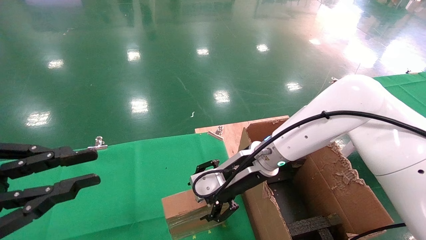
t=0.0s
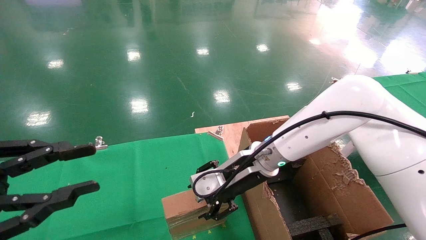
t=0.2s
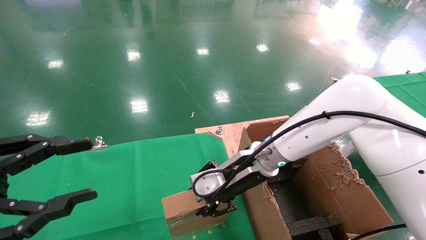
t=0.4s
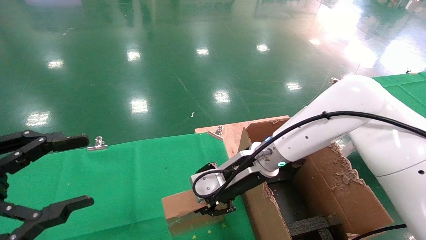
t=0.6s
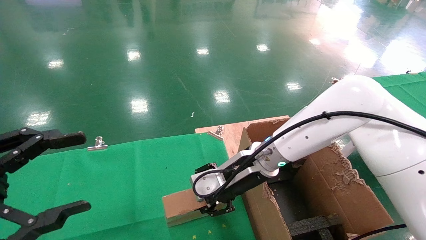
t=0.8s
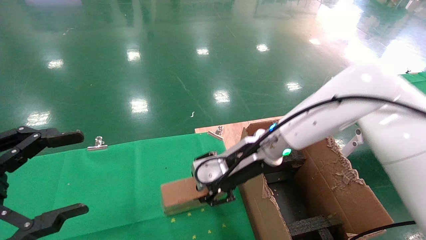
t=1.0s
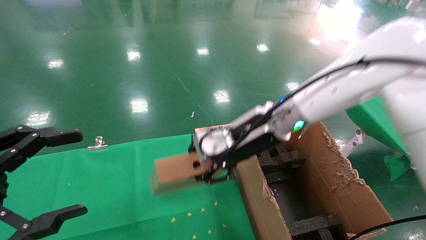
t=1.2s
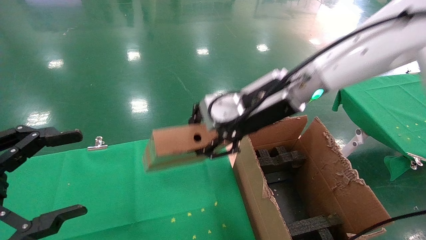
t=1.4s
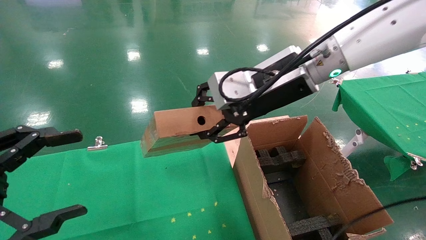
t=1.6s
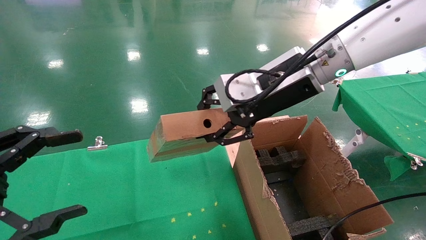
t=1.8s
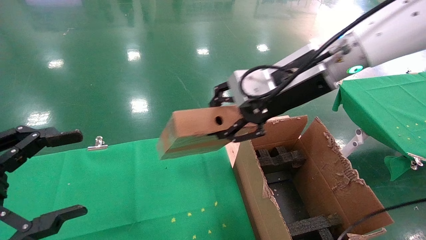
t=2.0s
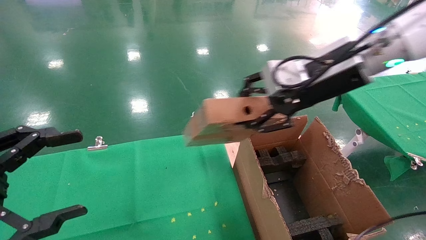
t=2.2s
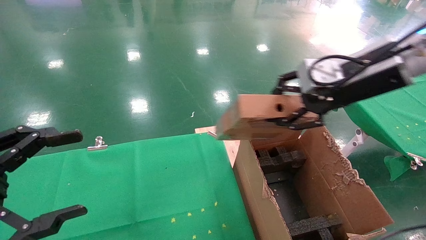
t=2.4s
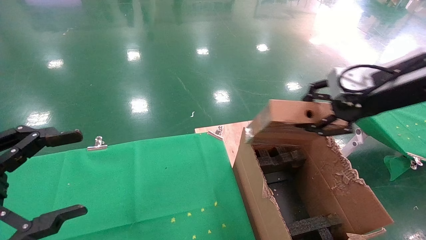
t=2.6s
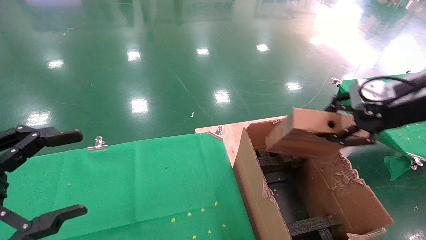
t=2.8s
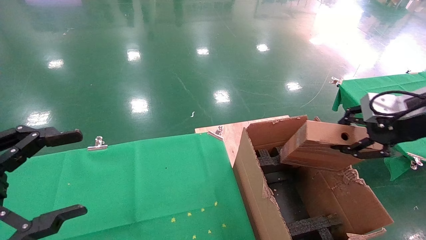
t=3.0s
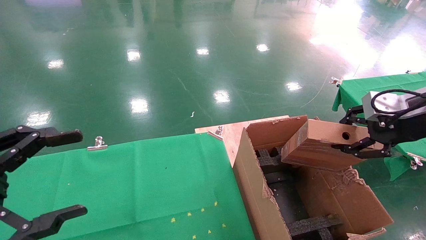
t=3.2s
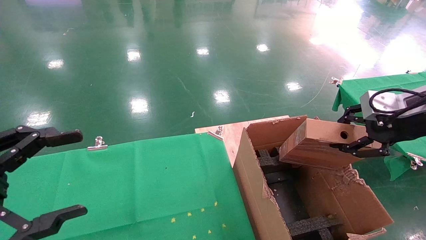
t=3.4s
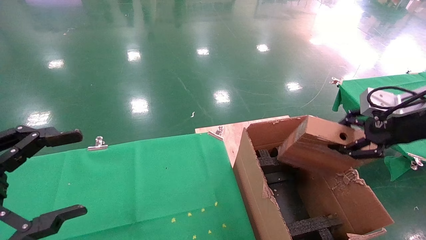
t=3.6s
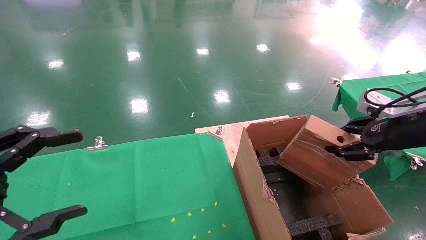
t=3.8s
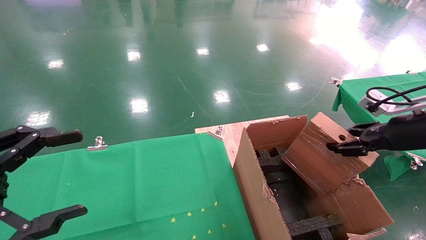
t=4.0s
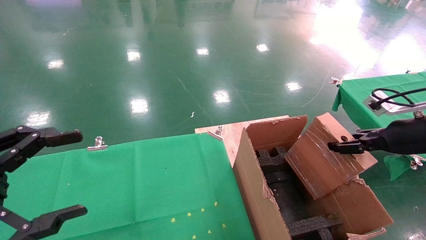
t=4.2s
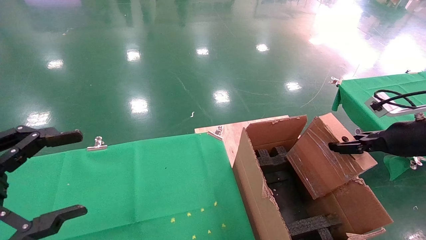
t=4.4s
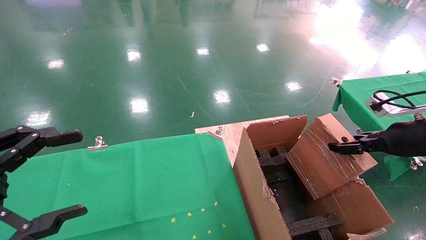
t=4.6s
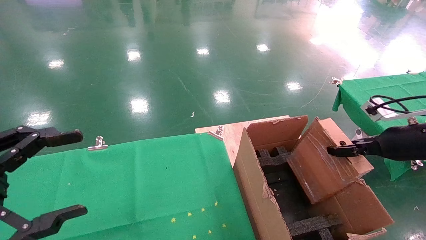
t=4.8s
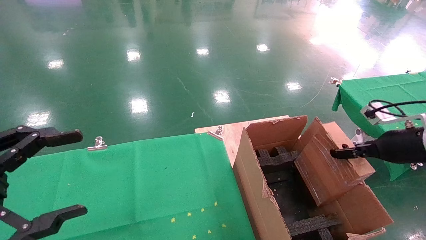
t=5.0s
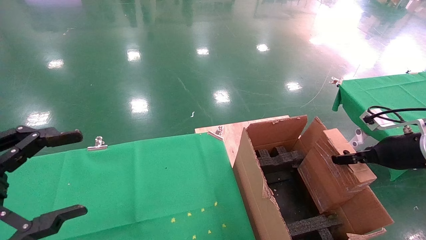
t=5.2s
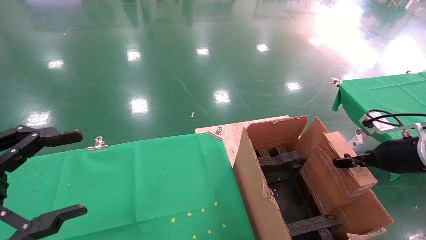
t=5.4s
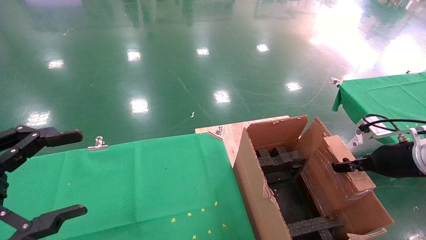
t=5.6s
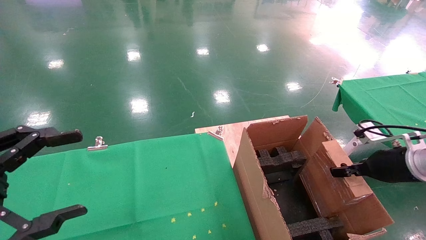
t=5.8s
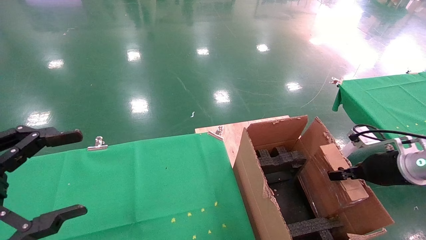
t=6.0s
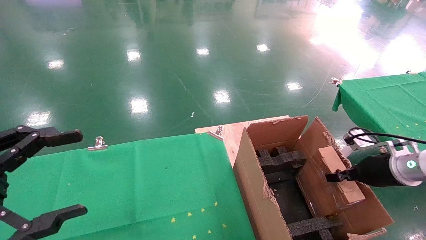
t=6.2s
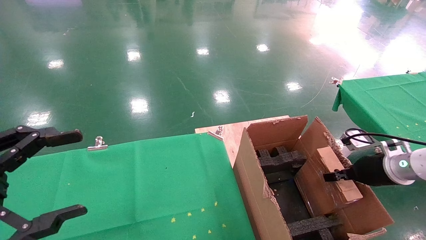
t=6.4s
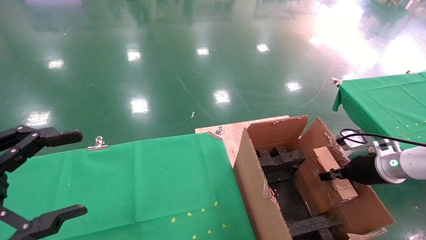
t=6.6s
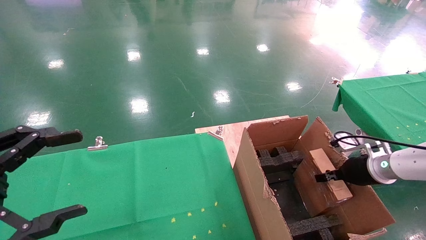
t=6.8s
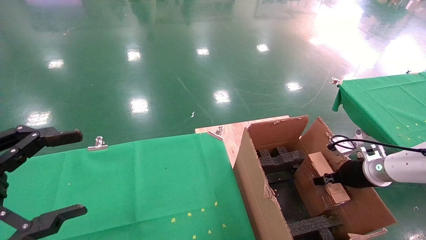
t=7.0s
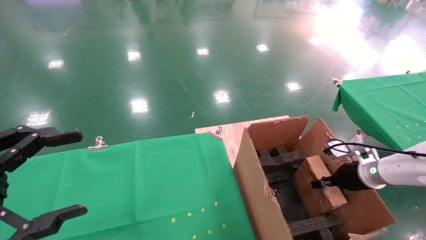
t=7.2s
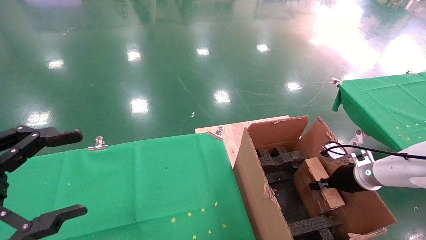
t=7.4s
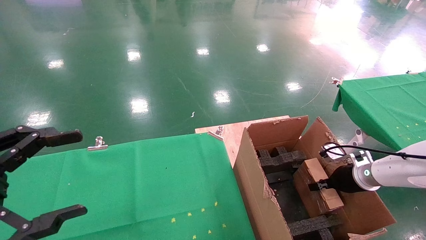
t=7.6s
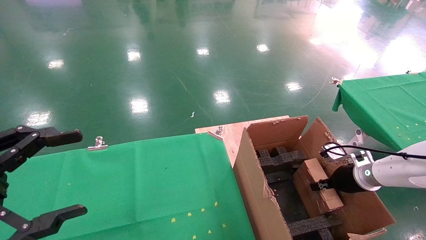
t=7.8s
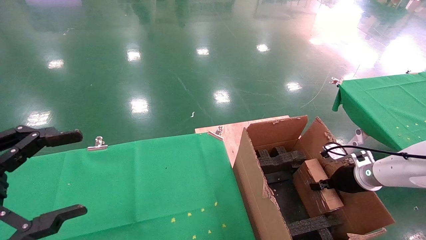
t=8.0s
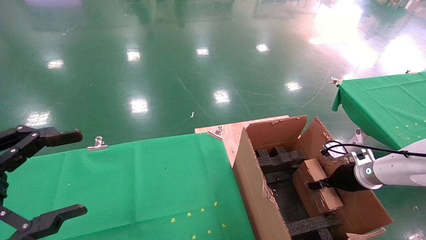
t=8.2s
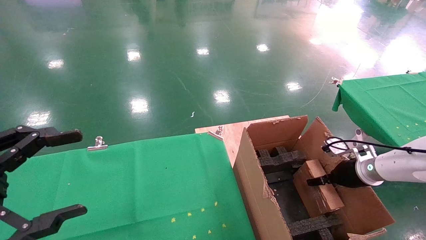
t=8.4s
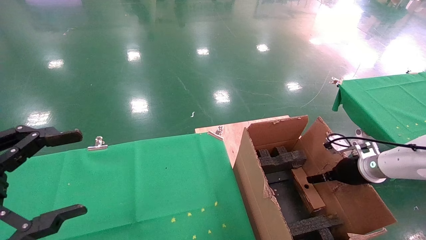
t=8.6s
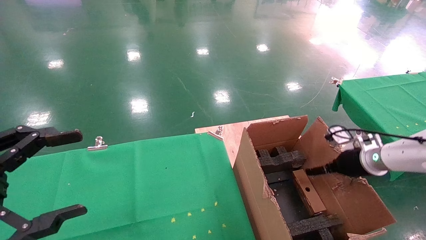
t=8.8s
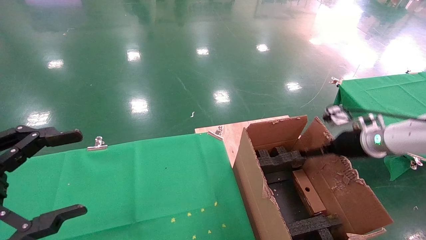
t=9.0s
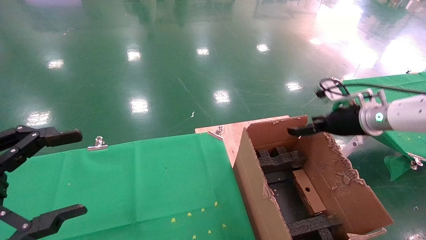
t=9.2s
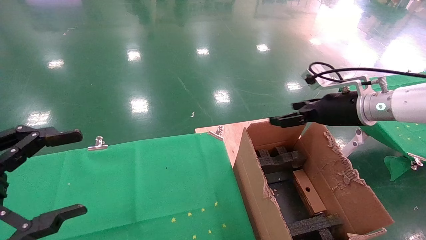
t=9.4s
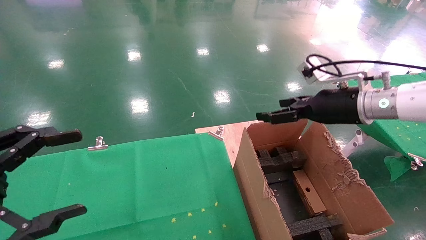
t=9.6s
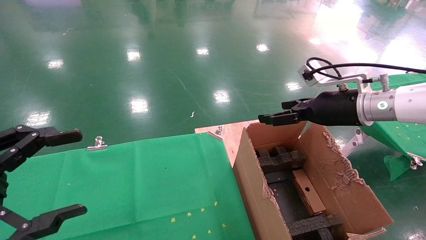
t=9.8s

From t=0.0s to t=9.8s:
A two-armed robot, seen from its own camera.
Task of the whole recording: using a robotic arm to pick up a cardboard box and palace it the carton.
Step, from t=0.6s to t=9.0s: Place the mouse and the power cord paper box into the container.
From t=0.0s to t=1.4s: The left gripper opens its fingers. The right gripper heads upward, covering approximately 15 cm, and closes its fingers.
From t=1.4s to t=2.8s: The right gripper shifts about 25 cm to the right.
From t=2.8s to t=4.2s: The right gripper shifts some 10 cm downward and to the right.
From t=4.2s to t=5.6s: The right gripper heads downward, covering roughly 5 cm.
From t=5.6s to t=7.0s: The right gripper is displaced downward and forward by about 10 cm.
From t=7.0s to t=8.4s: The right gripper opens up.
From t=8.4s to t=9.8s: The right gripper moves upward and to the left, approximately 20 cm, and opens up.

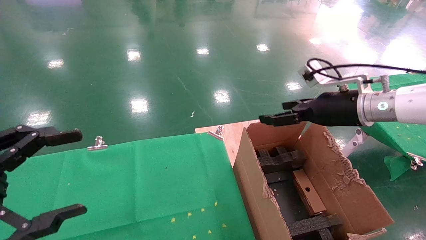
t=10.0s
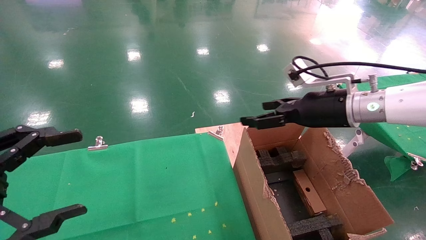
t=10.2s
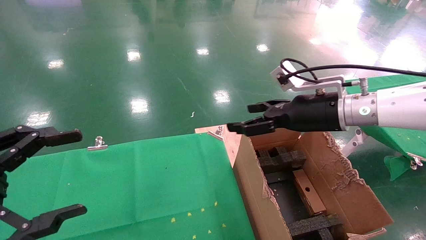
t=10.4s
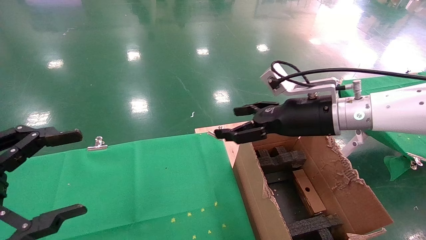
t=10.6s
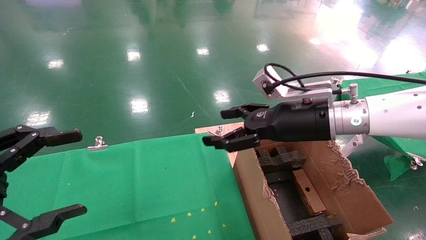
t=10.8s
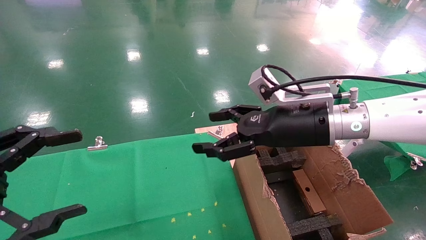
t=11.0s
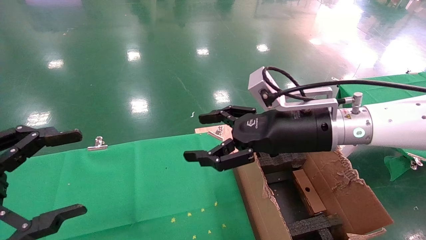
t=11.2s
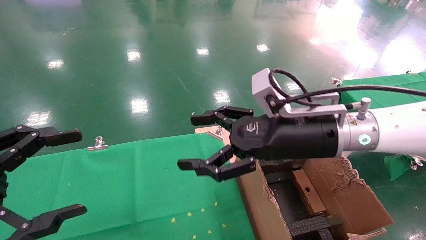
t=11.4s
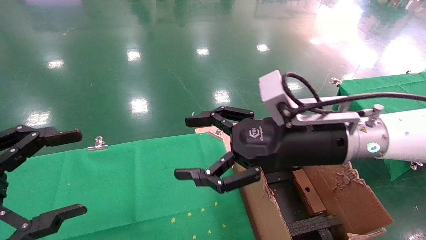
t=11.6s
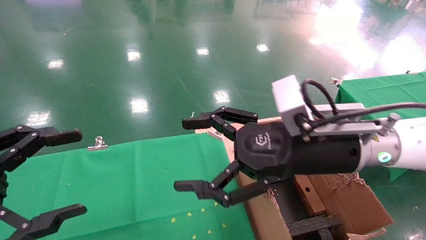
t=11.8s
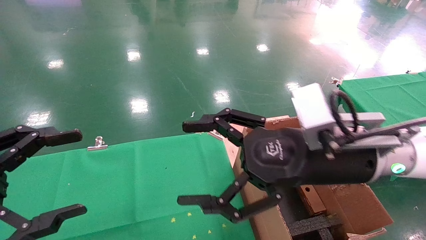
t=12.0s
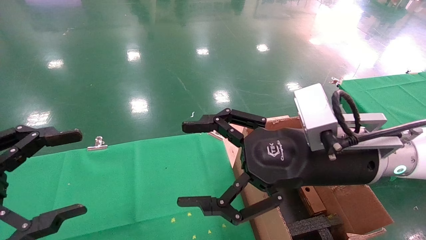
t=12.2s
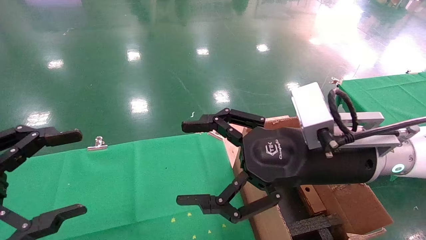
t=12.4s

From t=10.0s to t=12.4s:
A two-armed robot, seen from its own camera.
Task of the whole recording: using a robotic arm to pick up a cardboard box and palace it the carton.
From t=10.0s to t=11.2s: The right gripper travels to the left and backward by about 15 cm.
From t=11.2s to t=12.4s: The right gripper shifts roughly 5 cm backward.
